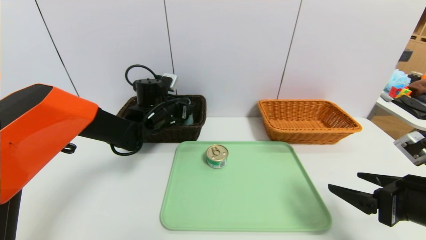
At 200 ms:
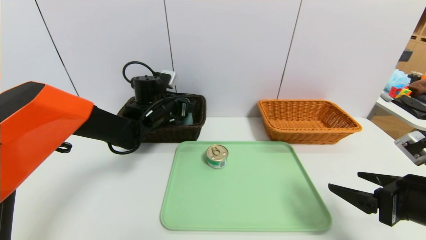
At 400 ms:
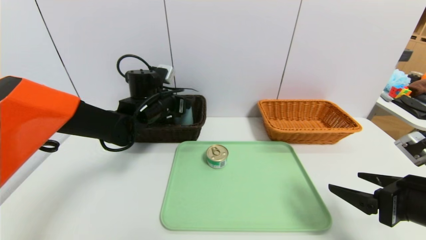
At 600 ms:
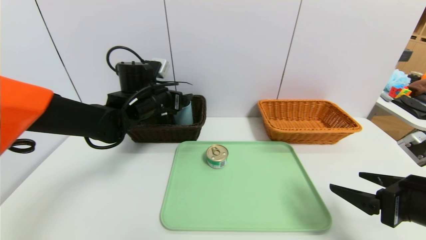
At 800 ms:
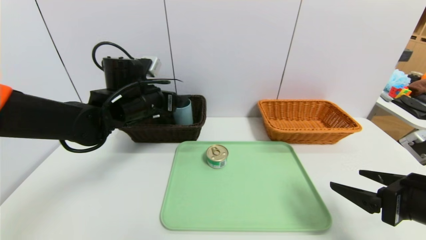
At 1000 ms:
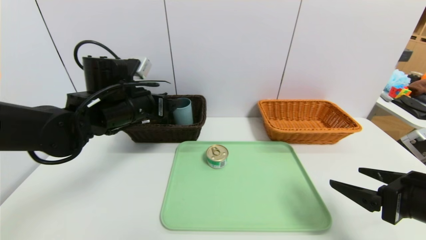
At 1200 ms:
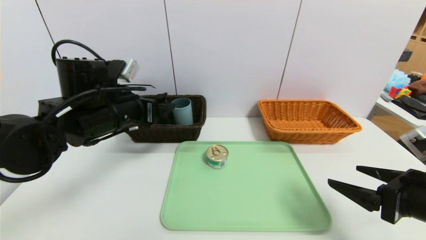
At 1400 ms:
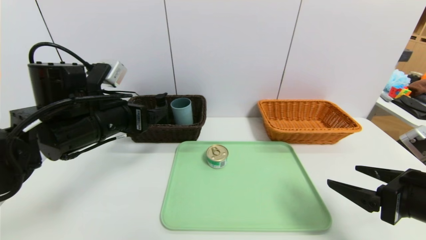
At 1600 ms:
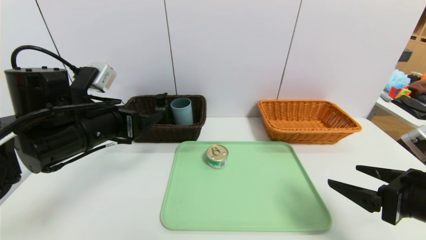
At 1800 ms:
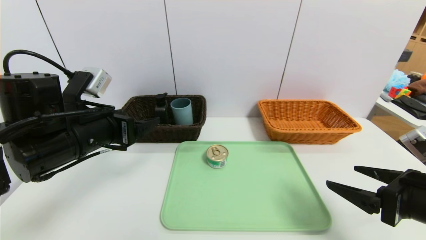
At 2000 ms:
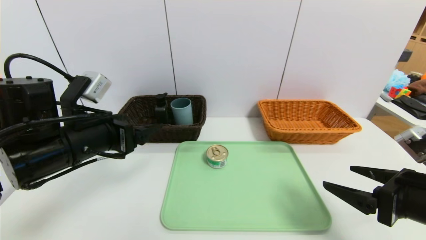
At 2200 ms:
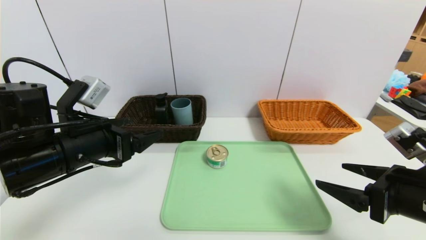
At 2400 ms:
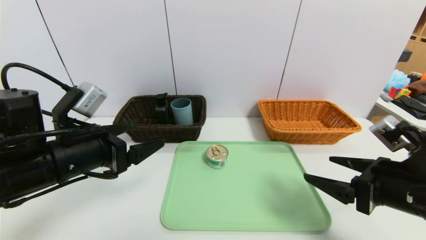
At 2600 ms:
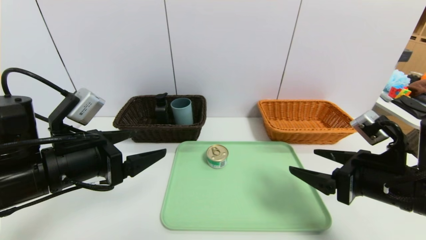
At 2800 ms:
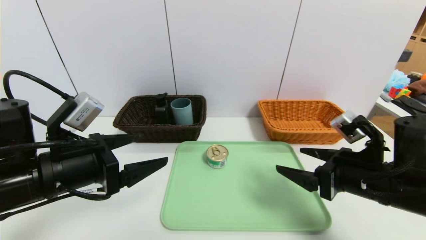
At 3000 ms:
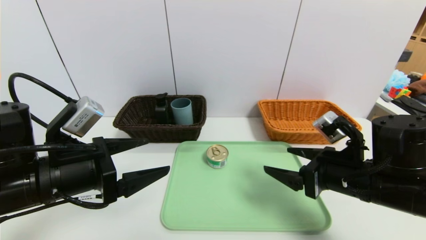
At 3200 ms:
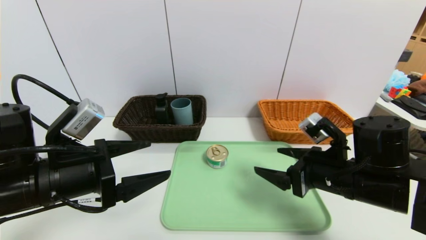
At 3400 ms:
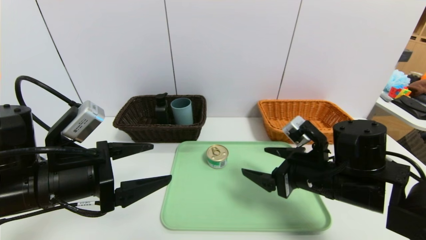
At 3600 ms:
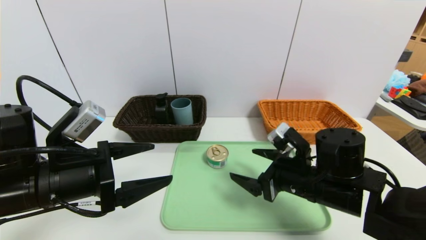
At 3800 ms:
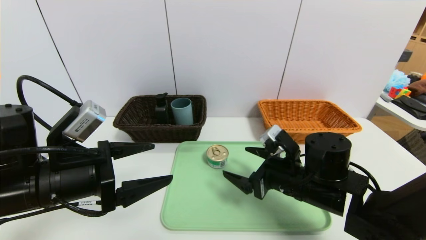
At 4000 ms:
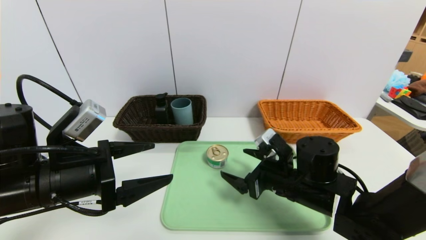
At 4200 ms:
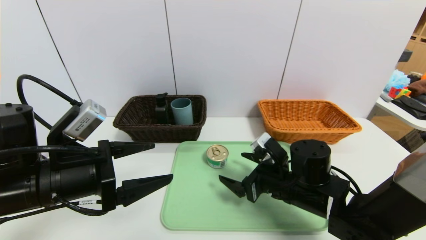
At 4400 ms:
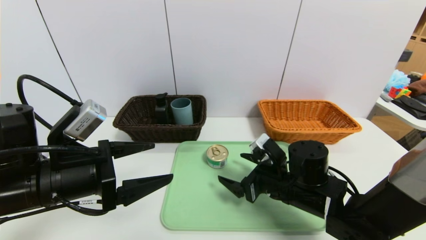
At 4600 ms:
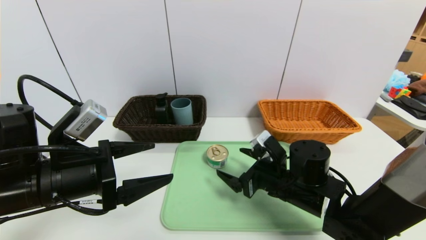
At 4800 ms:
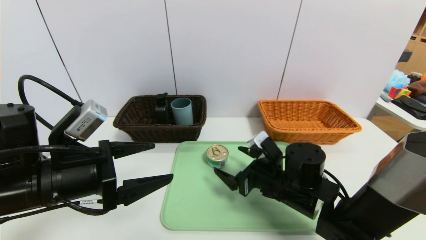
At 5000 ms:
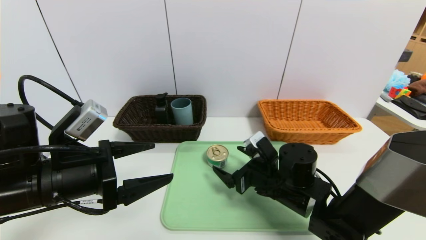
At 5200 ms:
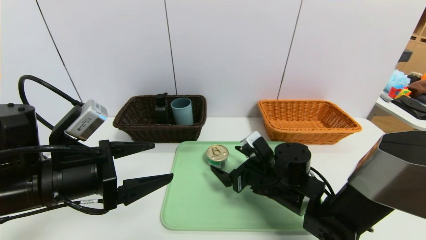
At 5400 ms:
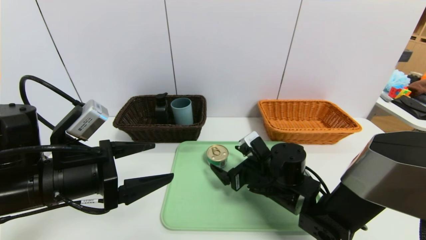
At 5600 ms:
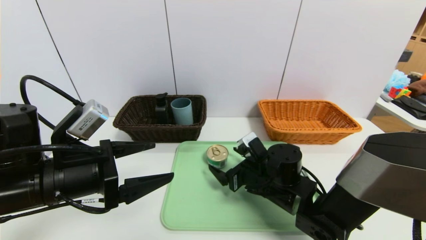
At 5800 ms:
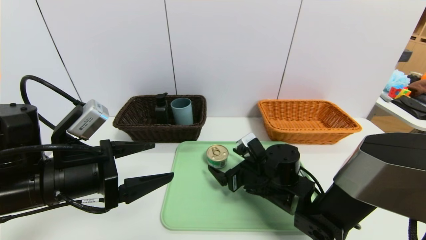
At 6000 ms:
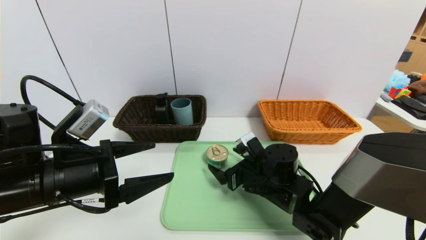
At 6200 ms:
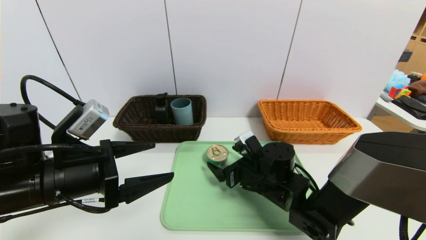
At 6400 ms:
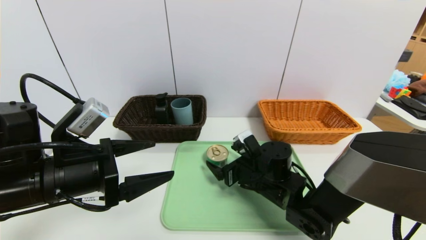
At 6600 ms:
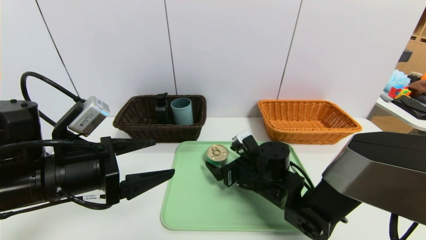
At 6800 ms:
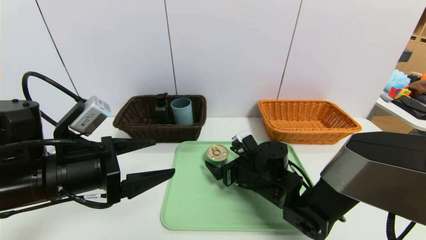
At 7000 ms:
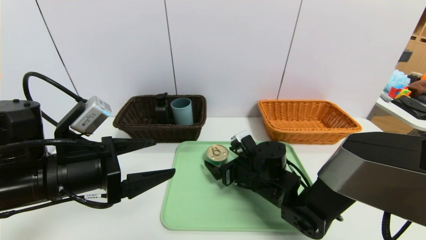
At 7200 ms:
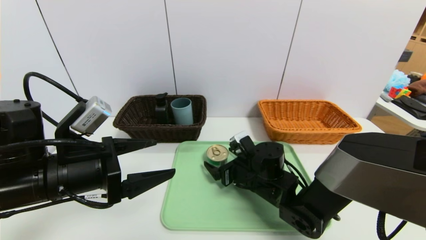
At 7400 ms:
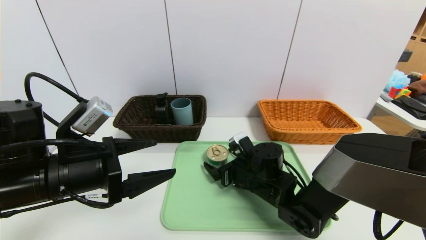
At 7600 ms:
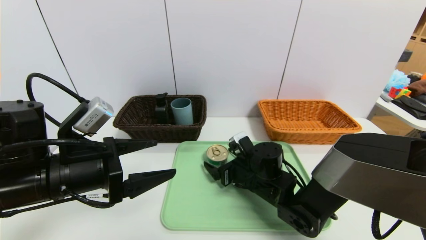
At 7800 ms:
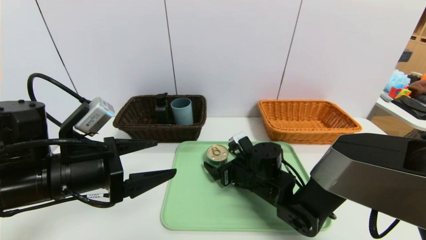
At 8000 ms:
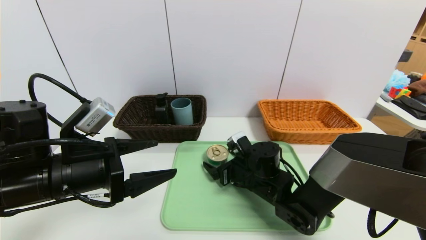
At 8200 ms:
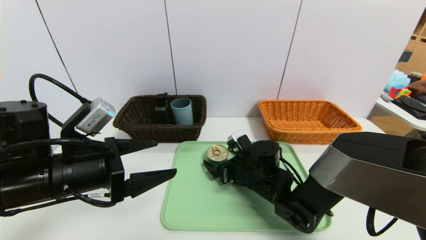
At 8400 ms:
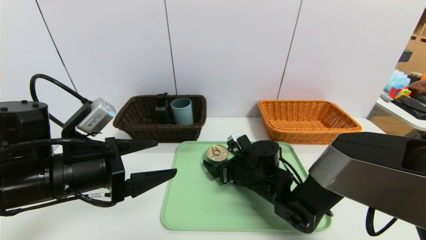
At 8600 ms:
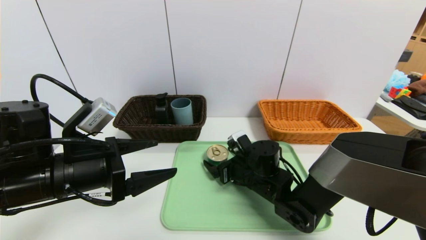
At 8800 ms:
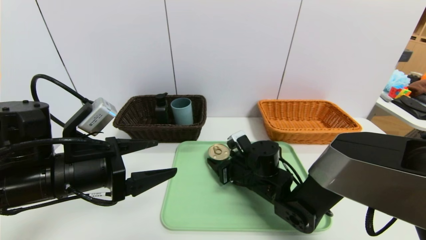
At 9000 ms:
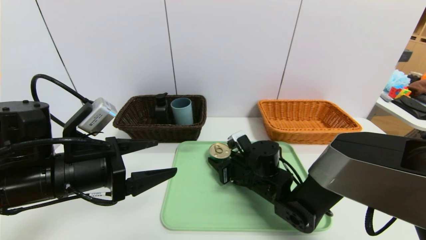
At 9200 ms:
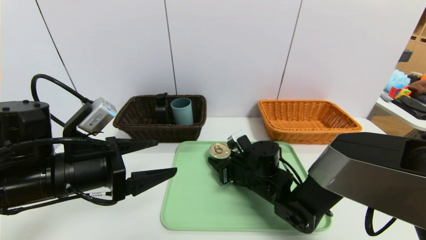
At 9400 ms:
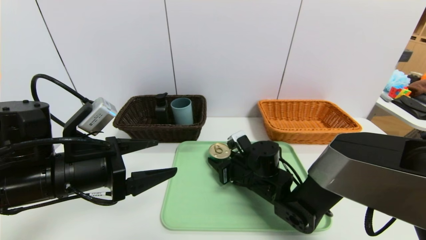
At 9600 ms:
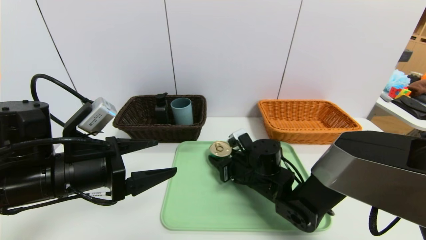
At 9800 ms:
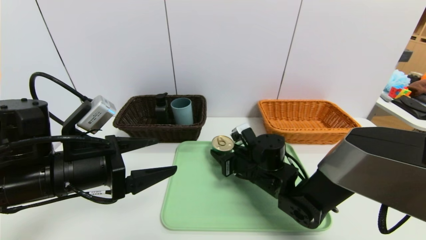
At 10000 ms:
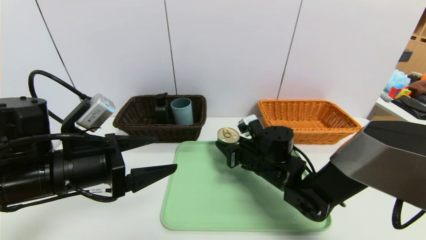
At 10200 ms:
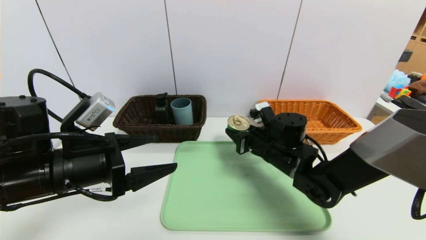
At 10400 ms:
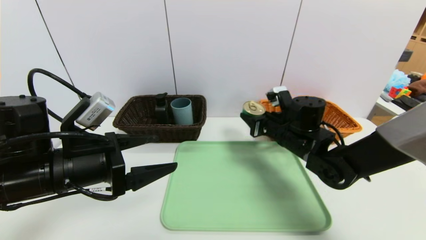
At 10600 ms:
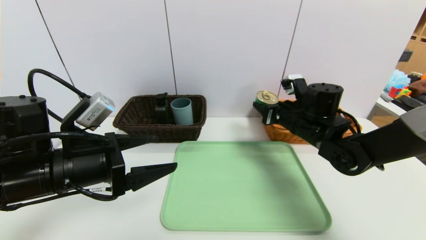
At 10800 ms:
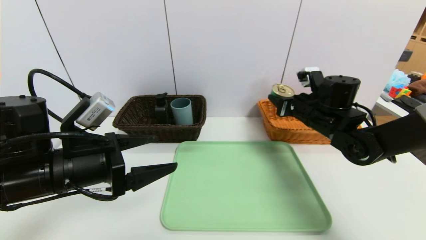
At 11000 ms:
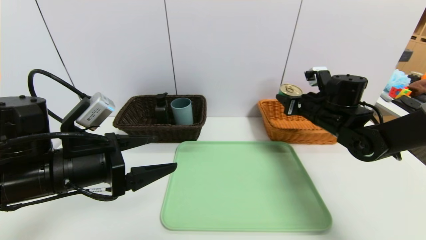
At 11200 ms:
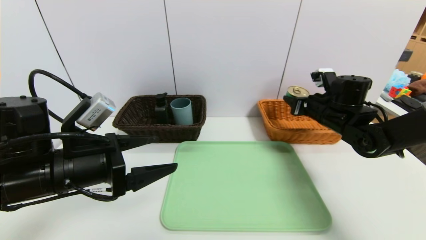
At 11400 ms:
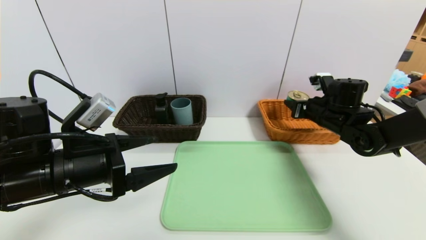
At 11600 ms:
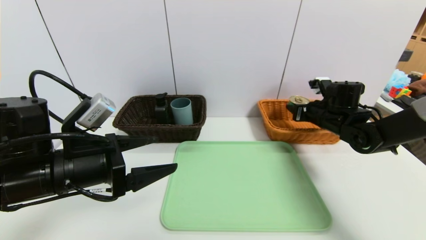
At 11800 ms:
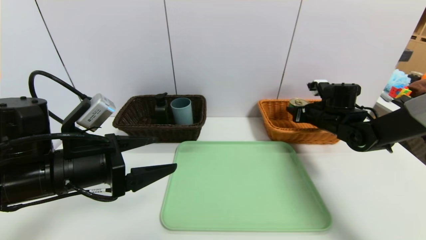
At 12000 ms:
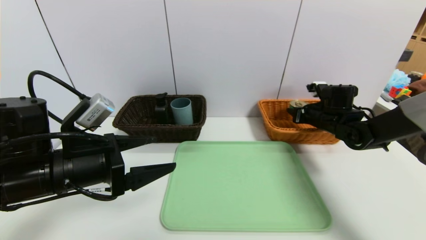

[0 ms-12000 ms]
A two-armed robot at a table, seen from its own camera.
Task of the whole recording: place the food in the right basket with the right gripper, and place the non food items in the left basket with the left gripper.
0 ms to 1600 ms: The left gripper goes roughly 15 cm backward.
1600 ms to 3000 ms: The right gripper heads to the left and forward, covering about 10 cm, while the left gripper heads backward, covering roughly 5 cm.
3000 ms to 4400 ms: The right gripper heads to the left and downward, covering roughly 10 cm.
4400 ms to 6000 ms: The right gripper moves some 5 cm.
6000 ms to 7600 ms: The grippers stay close to where they were, moving slightly.
7600 ms to 9000 ms: The right gripper closes its fingers.
9000 ms to 10400 ms: The right gripper is displaced upward and to the right by approximately 10 cm.
10400 ms to 12000 ms: The right gripper heads to the right and forward, covering about 15 cm.

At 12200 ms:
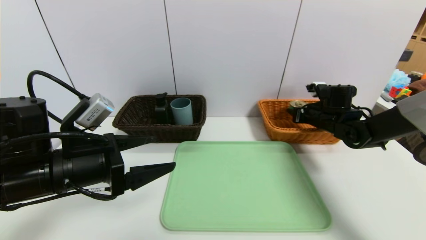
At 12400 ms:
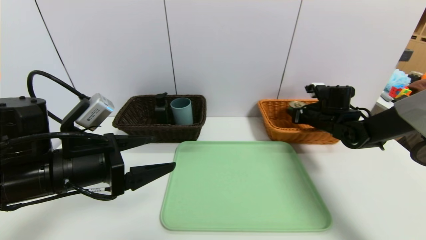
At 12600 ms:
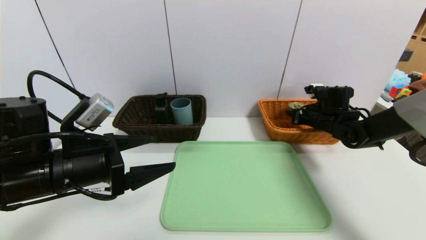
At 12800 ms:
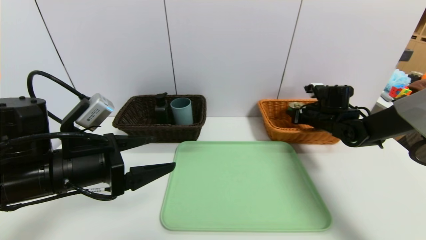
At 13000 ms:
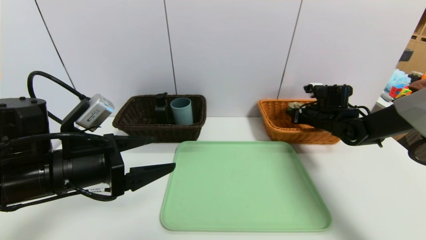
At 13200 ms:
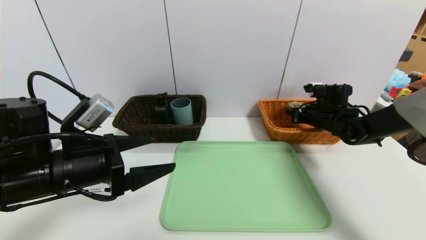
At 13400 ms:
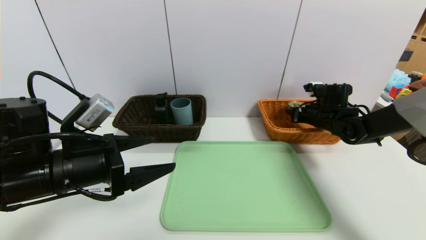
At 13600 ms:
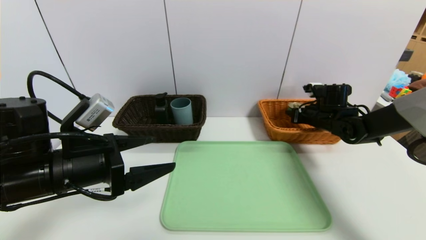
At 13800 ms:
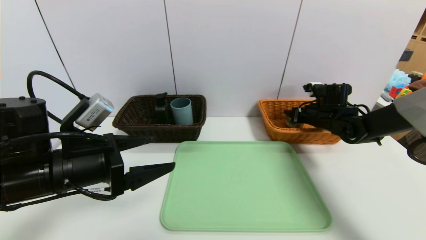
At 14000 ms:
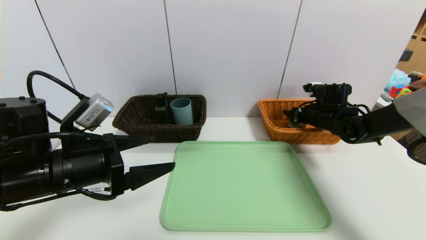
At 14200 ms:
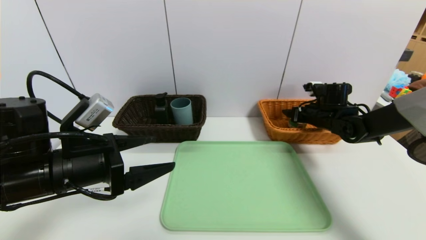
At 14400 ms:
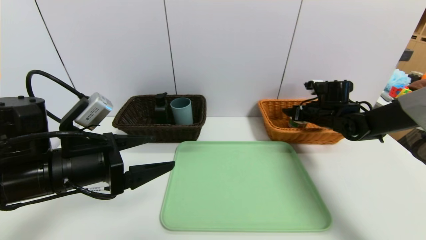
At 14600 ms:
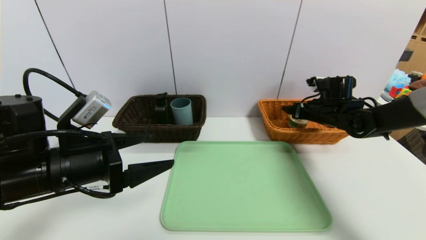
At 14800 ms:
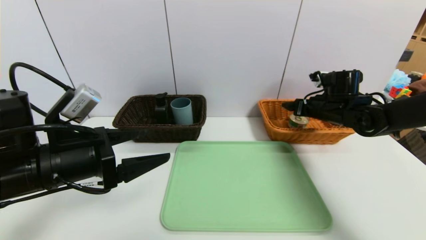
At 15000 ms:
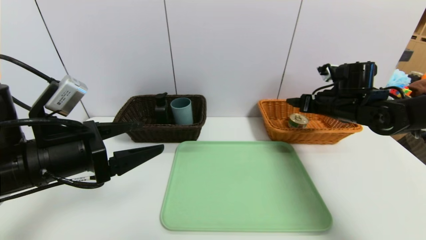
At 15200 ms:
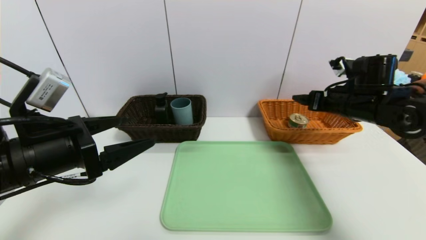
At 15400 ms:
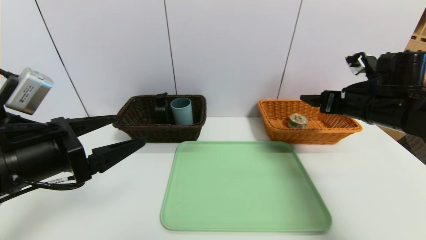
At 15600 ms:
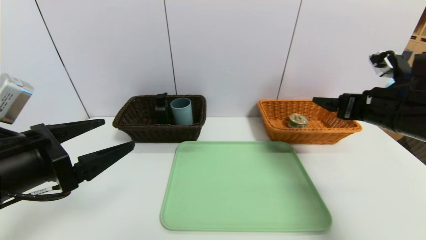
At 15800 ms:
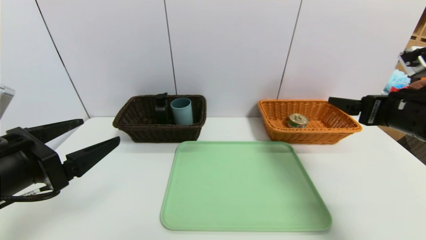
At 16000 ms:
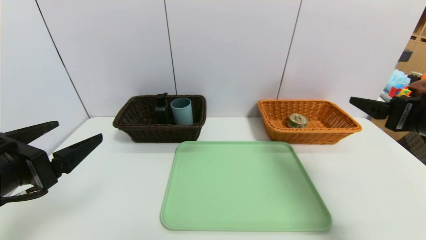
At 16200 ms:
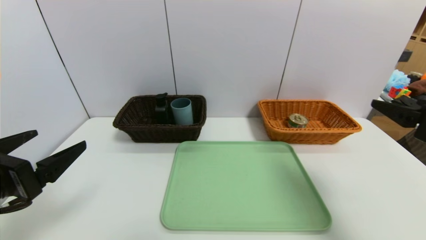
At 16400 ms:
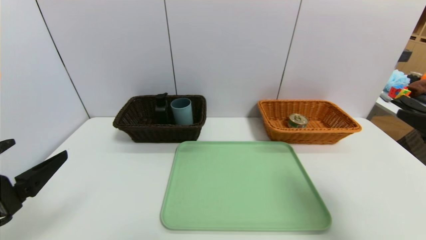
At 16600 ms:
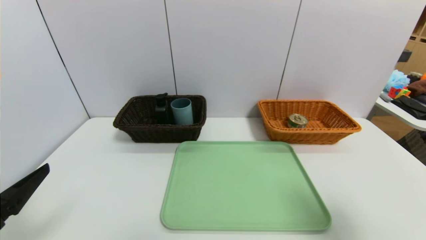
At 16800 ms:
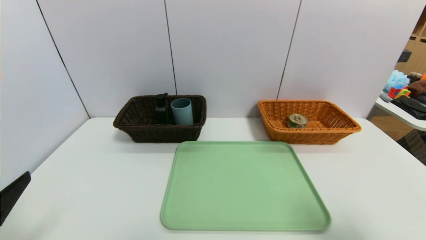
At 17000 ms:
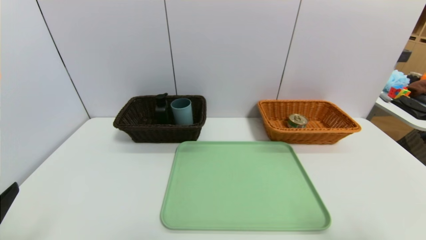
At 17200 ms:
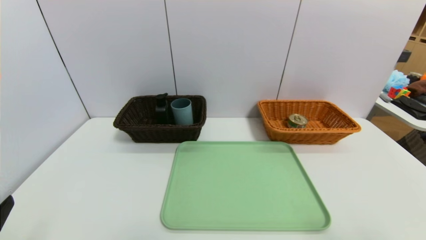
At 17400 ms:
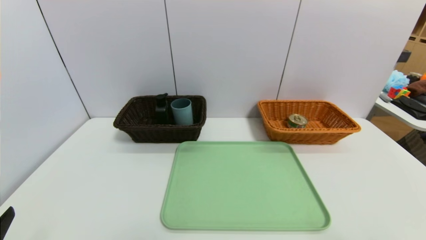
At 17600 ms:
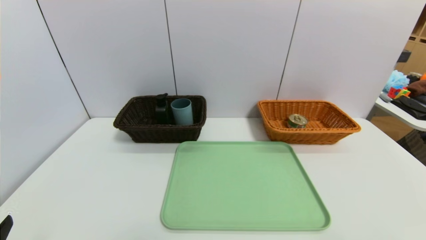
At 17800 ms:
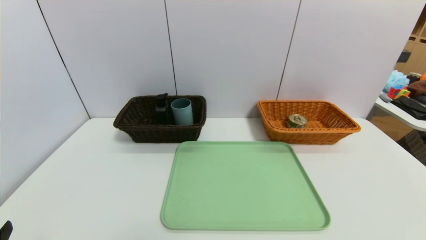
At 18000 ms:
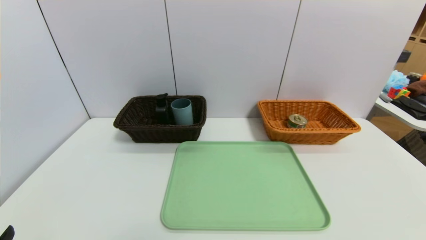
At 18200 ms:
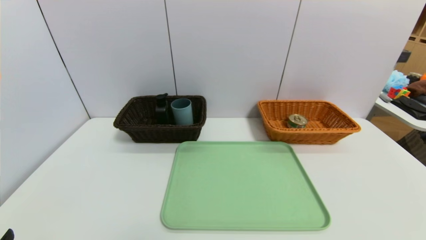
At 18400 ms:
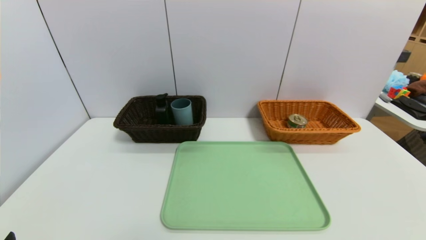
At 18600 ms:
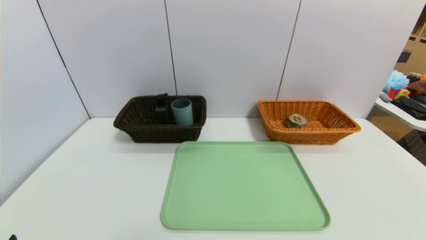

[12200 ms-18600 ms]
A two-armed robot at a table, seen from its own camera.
Task of the whole recording: place the food in the right basket with the right gripper, and place the non food items in the left basket with the left gripper.
Step, 12200 ms to 14200 ms: Grasp the can and put it in the right basket.
12200 ms to 13800 ms: The right gripper opens.
13800 ms to 15400 ms: The right gripper shifts approximately 15 cm backward and upward, and opens its fingers. The left gripper shifts by some 5 cm.
15400 ms to 17000 ms: The left gripper moves backward and to the left, some 15 cm, while the right gripper shifts approximately 30 cm backward.
